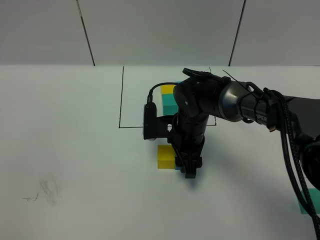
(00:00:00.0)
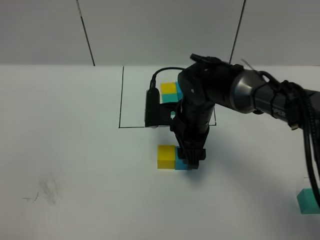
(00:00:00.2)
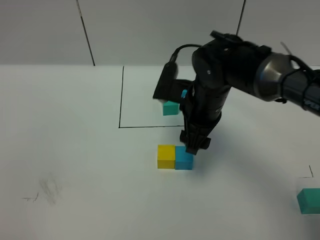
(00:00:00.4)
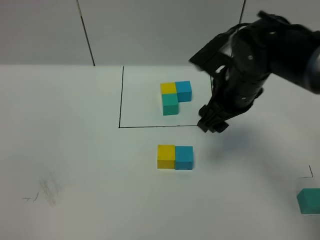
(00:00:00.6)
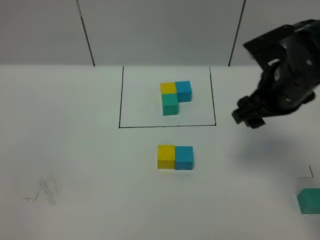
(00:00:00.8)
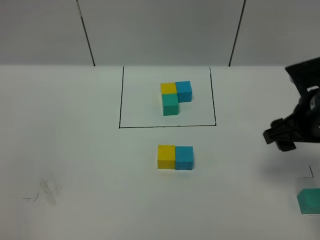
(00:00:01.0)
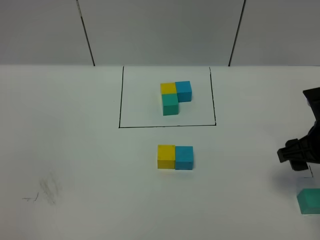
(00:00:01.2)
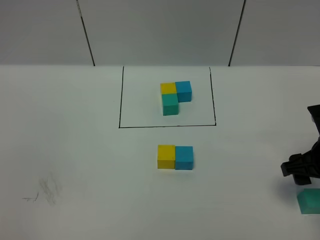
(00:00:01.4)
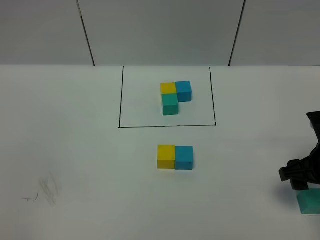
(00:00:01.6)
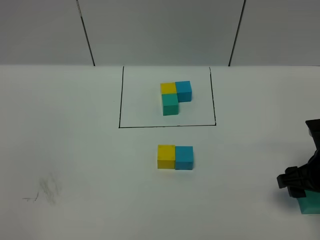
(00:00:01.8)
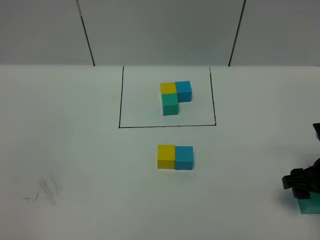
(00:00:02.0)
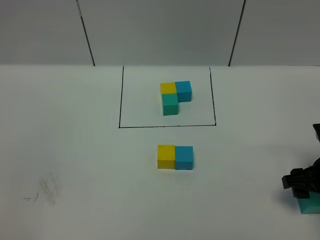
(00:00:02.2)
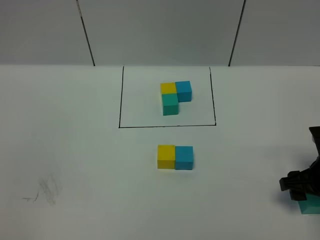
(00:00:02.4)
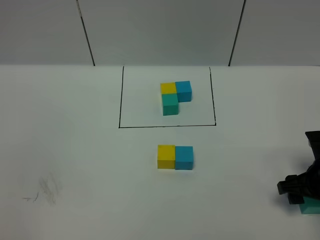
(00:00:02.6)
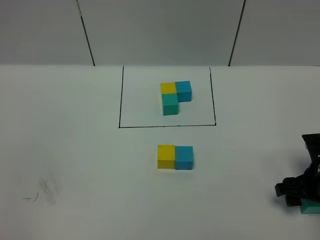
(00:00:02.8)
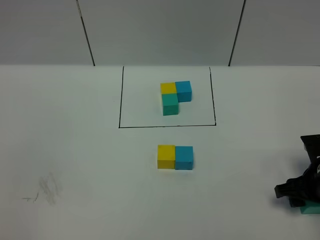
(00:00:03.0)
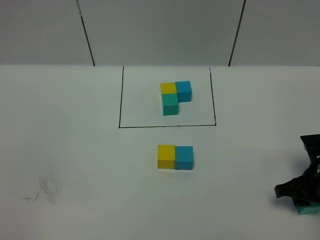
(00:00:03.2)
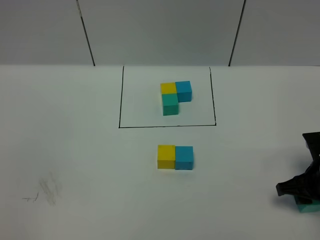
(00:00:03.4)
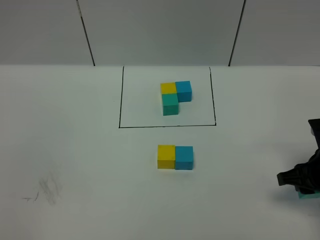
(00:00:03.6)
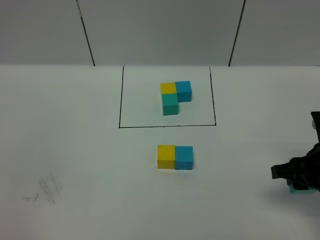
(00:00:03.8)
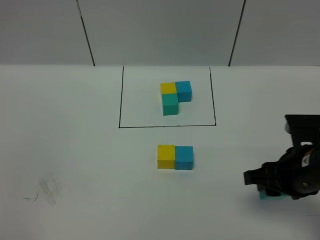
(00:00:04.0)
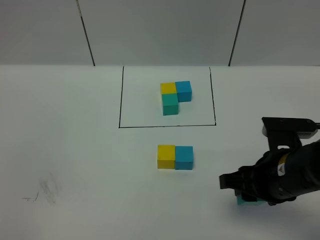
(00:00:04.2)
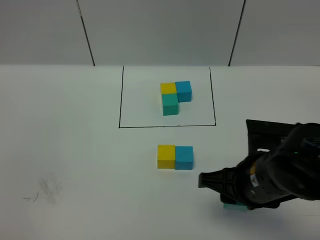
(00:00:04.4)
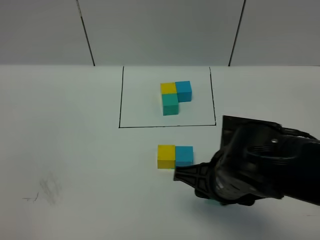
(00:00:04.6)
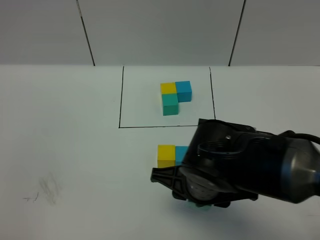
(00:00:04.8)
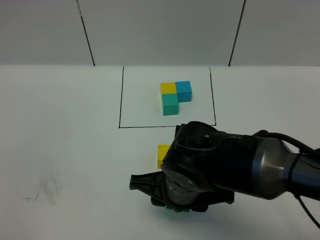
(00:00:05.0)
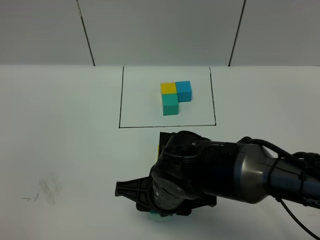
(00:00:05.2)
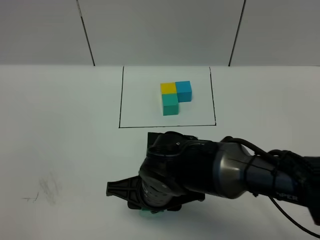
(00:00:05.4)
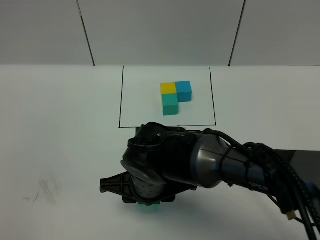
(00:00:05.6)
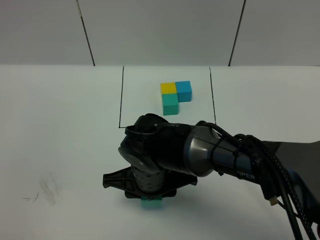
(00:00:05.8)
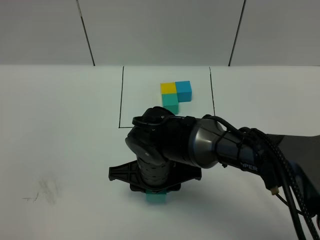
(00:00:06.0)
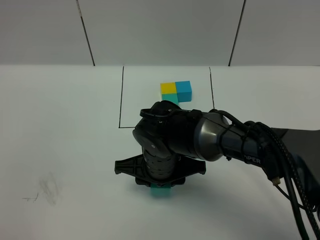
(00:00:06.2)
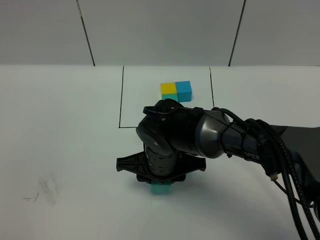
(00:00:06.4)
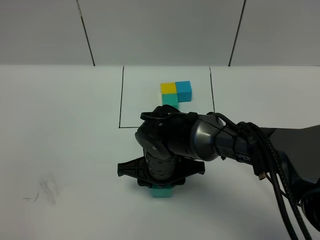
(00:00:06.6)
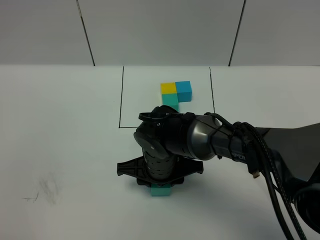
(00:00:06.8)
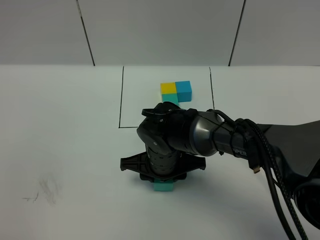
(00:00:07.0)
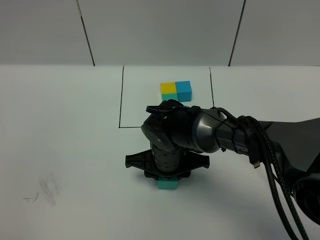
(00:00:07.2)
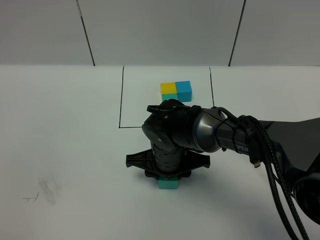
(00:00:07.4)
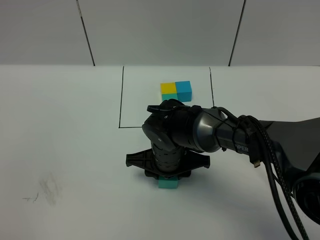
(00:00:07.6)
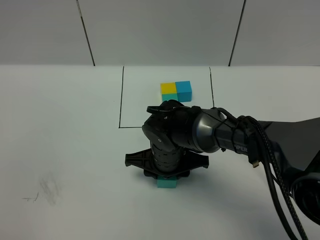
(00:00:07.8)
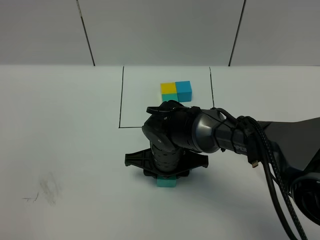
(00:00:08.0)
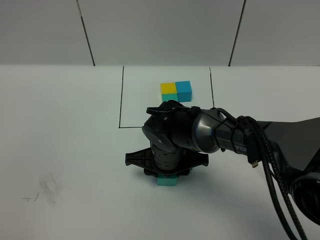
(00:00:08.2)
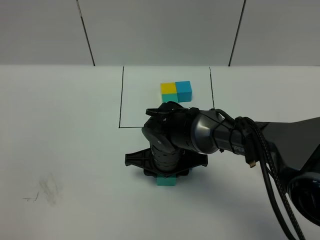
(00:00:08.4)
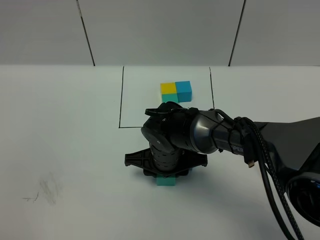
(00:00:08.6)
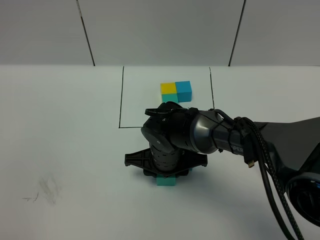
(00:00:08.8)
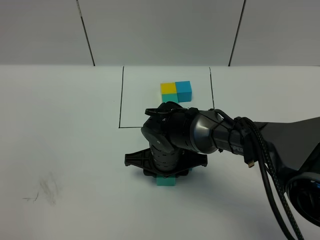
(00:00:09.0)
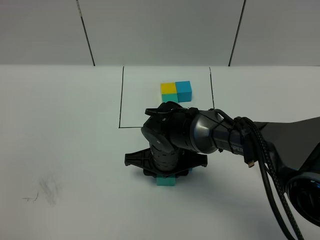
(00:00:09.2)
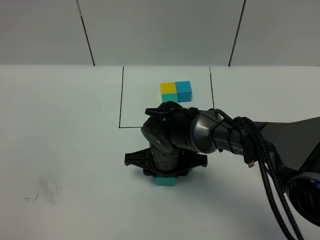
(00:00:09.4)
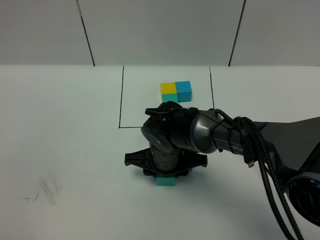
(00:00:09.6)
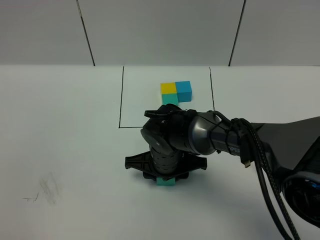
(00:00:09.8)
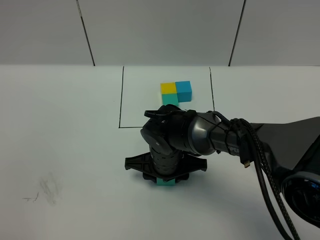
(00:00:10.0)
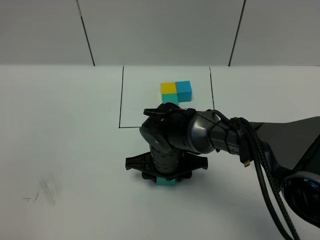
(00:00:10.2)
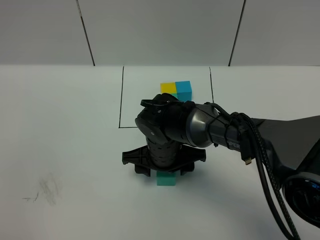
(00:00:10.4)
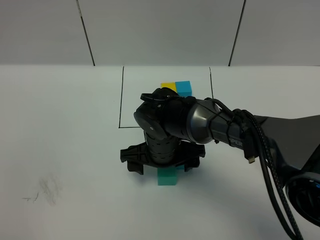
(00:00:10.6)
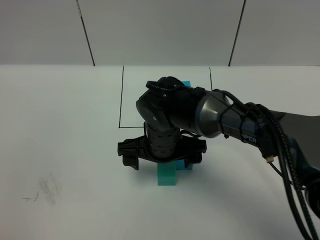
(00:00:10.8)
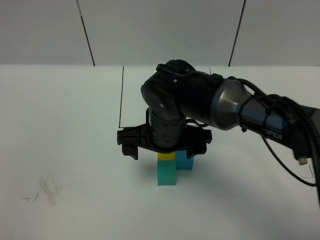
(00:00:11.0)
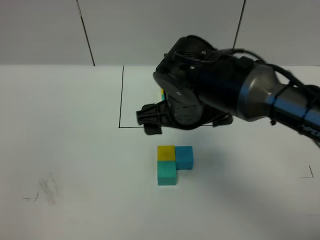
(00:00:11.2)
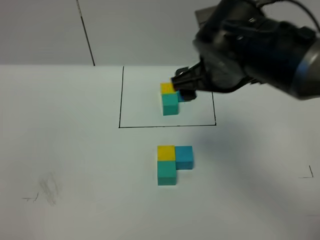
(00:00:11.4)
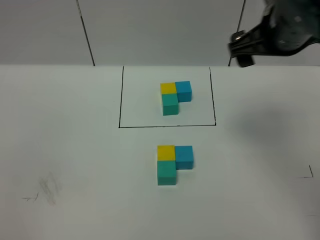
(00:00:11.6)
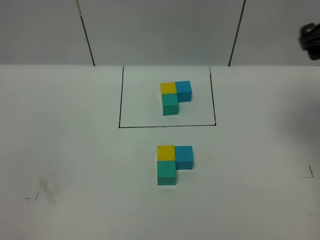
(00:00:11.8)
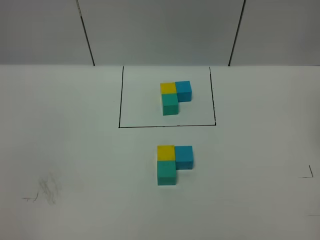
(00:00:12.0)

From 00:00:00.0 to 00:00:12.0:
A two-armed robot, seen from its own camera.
Task of the whole recording: According to the building block template in front, assemble the scattered blocks together.
Step, from 00:00:00.8 to 00:00:11.2: Put the green cube on the behind of the yellow cube.
From 00:00:00.0 to 00:00:01.6: The right gripper travels to the right and backward by about 25 cm.
From 00:00:01.6 to 00:00:03.0: The right gripper goes about 5 cm downward, and closes.
From 00:00:03.0 to 00:00:04.4: The right gripper is displaced to the left and upward by approximately 20 cm.
From 00:00:04.4 to 00:00:06.0: The right gripper shifts about 15 cm to the left, forward and downward.
From 00:00:06.0 to 00:00:07.6: The right gripper ends up approximately 5 cm from where it was.
From 00:00:07.6 to 00:00:09.0: The two grippers keep their place.
From 00:00:09.0 to 00:00:10.4: The right gripper opens.
From 00:00:10.4 to 00:00:12.0: The right gripper goes roughly 40 cm to the right and upward, and opens its fingers.
